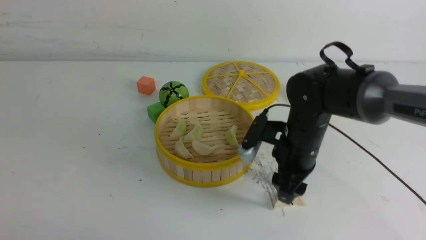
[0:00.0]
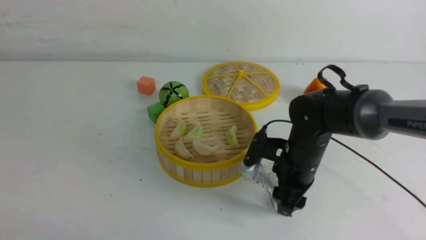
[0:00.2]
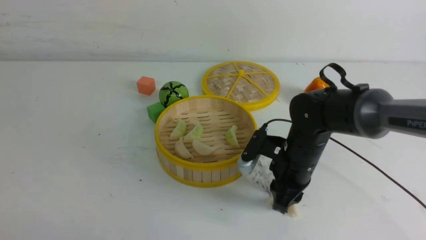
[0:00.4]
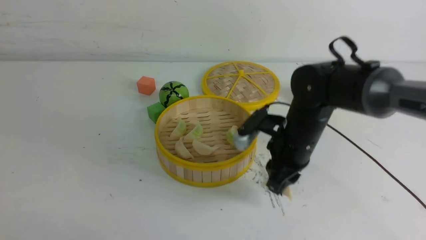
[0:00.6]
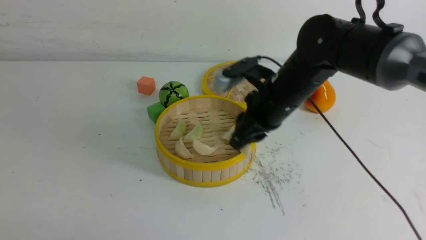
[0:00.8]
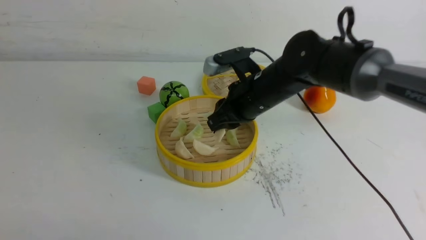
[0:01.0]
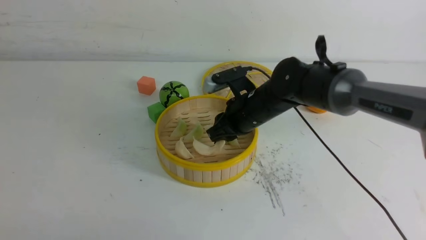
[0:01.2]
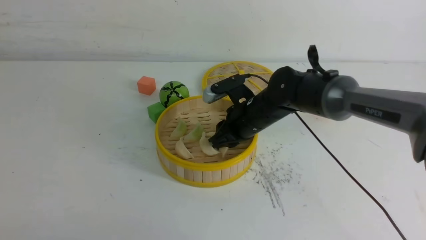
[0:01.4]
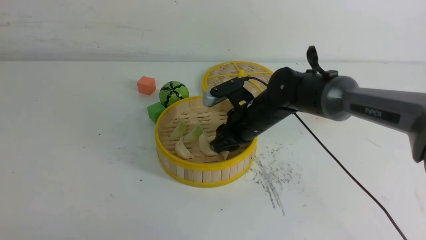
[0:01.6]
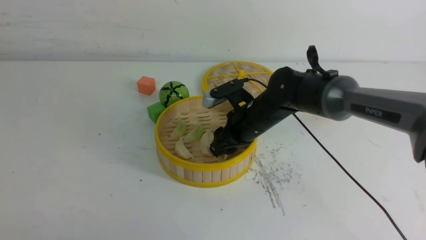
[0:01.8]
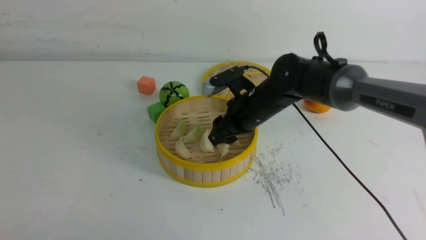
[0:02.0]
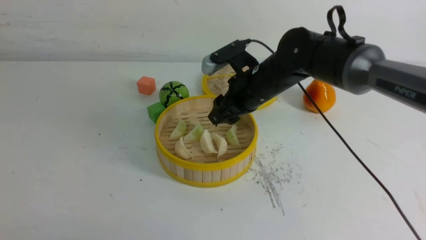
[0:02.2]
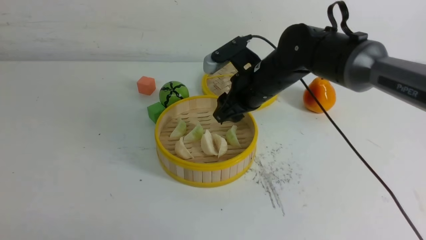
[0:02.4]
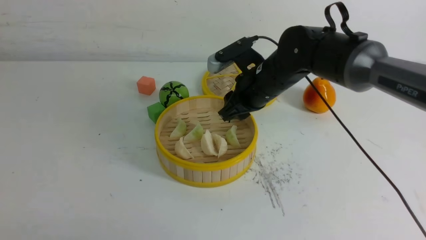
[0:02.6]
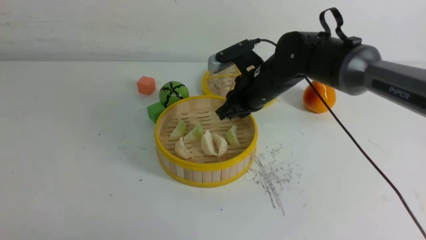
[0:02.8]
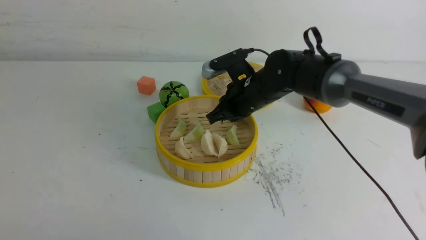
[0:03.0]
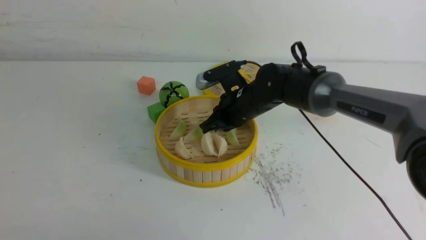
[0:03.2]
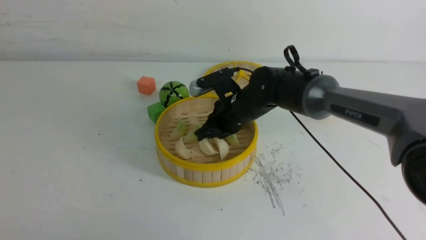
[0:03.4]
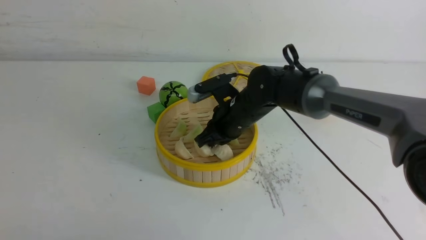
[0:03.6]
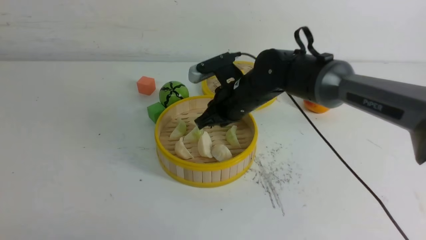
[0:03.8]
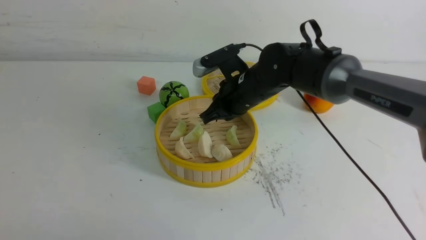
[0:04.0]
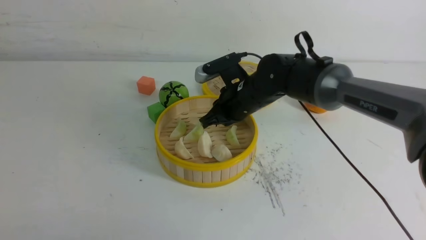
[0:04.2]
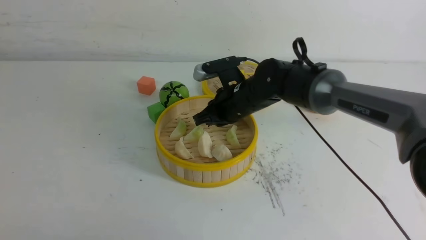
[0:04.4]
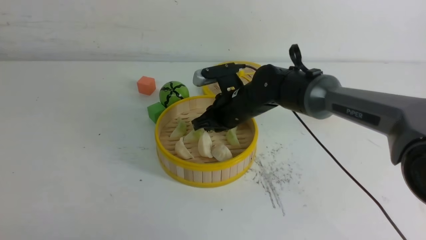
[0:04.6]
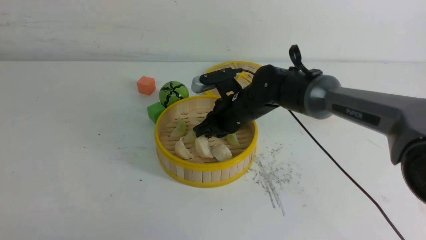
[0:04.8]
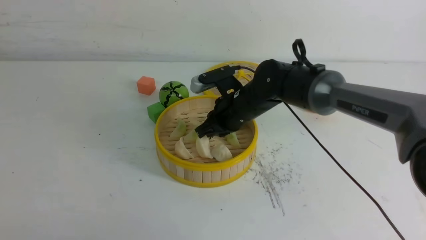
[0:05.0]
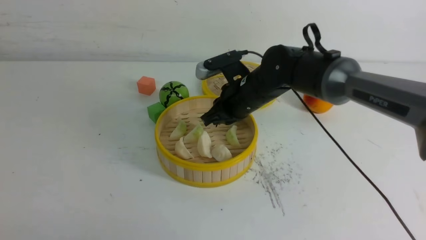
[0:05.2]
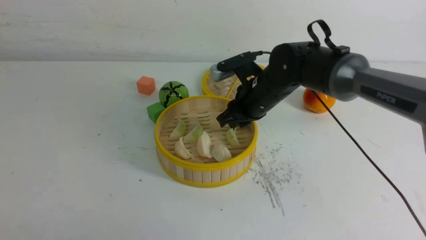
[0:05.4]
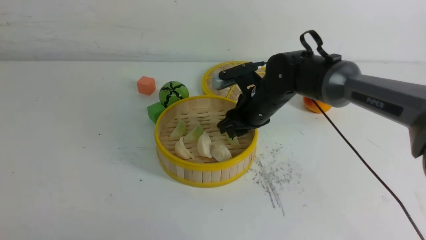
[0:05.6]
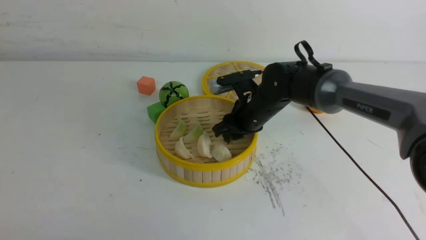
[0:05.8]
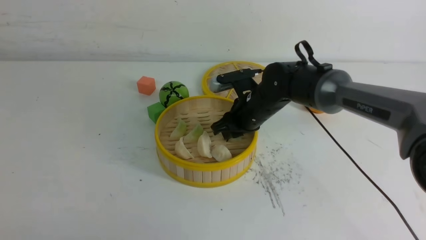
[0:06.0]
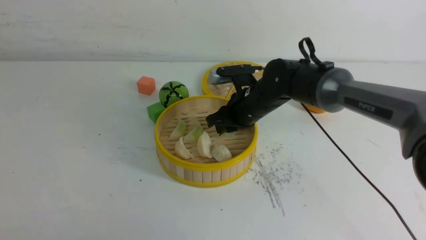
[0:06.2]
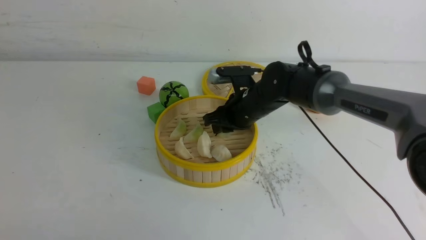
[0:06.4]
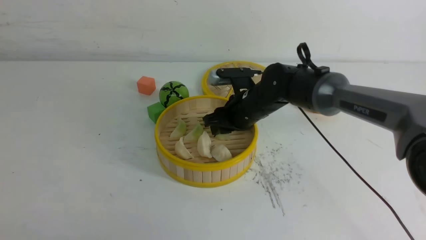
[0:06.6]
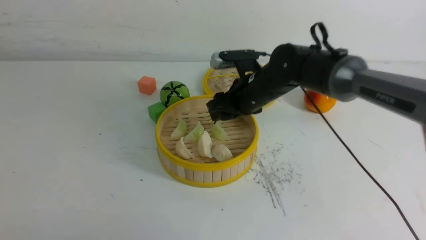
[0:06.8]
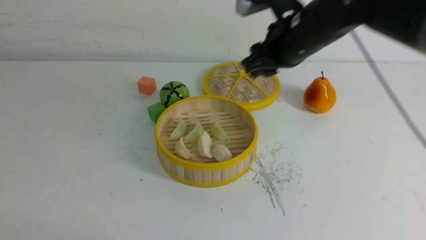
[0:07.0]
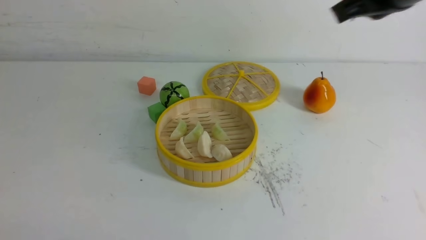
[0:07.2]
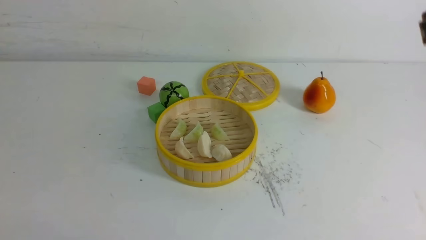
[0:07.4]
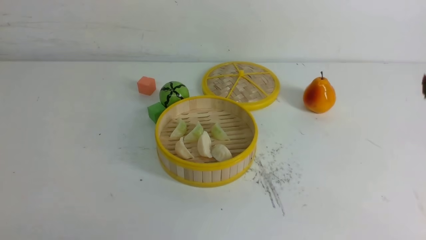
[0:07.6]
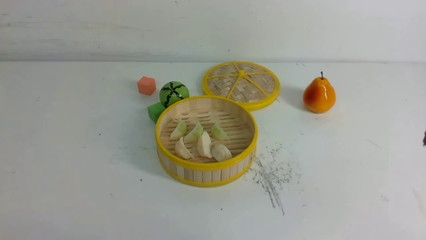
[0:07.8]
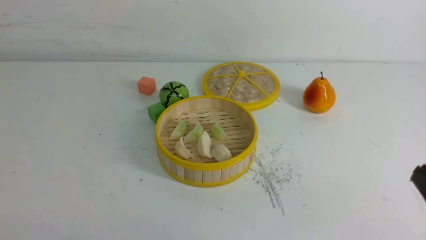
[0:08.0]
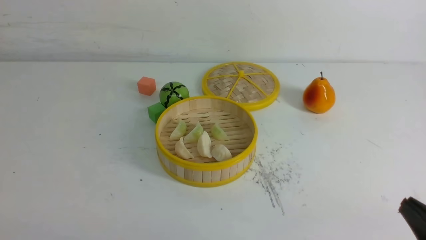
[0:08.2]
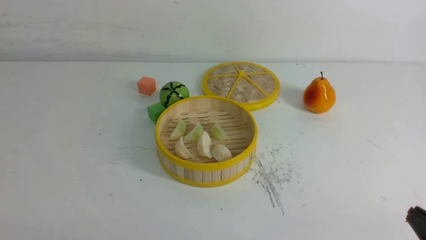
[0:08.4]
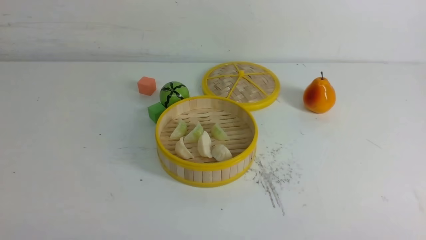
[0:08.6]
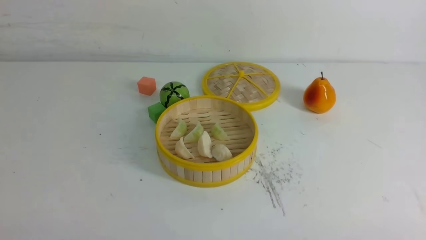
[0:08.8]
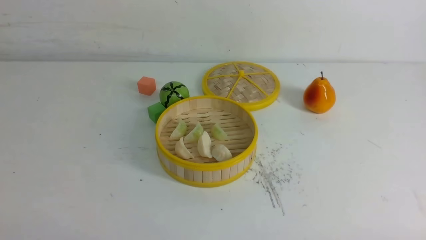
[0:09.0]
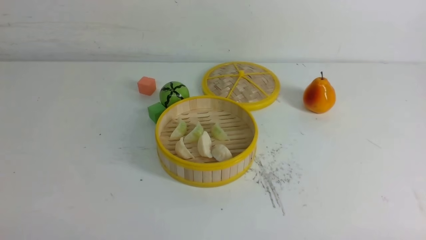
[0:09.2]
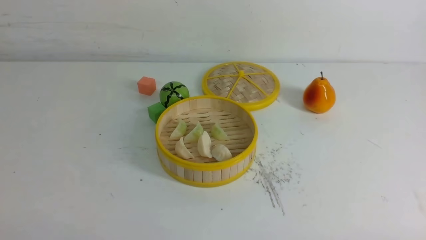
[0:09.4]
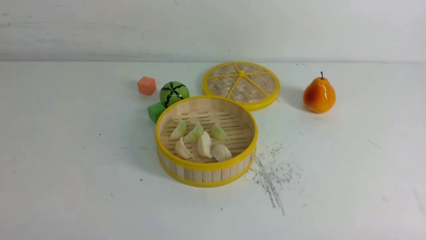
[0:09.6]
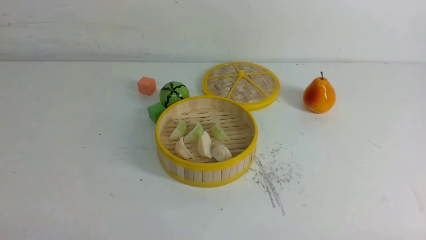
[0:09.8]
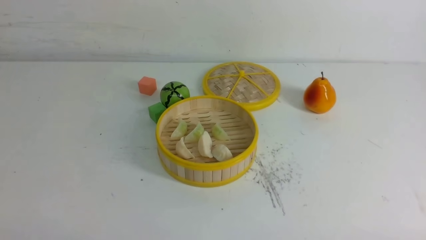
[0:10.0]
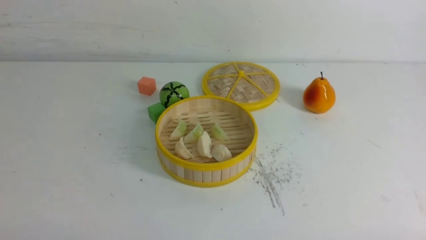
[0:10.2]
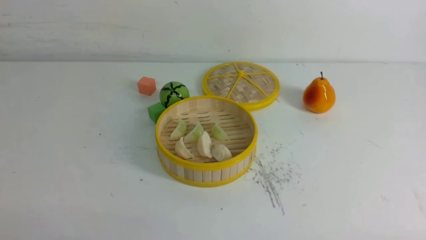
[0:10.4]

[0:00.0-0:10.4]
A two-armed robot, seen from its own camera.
Task of the whole recording: put the dumplings into the steamer on the white table.
Step, 0:00.8 to 0:01.8: use the right arm to put the dumpling into the steamer.
0:00.0 to 0:01.4: The right gripper heads forward and to the left, covering approximately 10 cm, moves approximately 5 cm upward and comes back, and closes its fingers.
0:01.4 to 0:03.0: The right gripper closes its fingers.
0:03.0 to 0:04.4: The grippers make only small movements.
0:04.4 to 0:06.0: The right gripper opens its fingers.
0:06.0 to 0:07.4: The right gripper moves upward, backward and to the right, roughly 35 cm, and closes up.

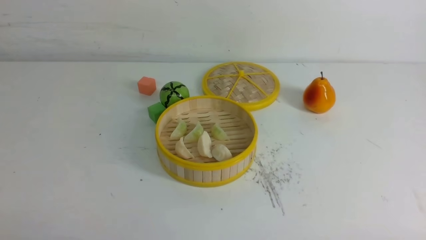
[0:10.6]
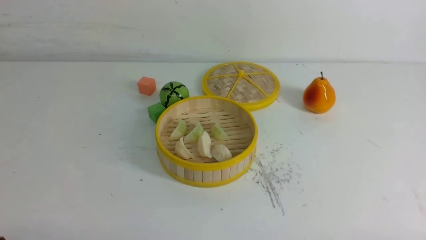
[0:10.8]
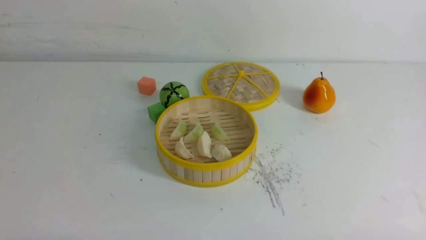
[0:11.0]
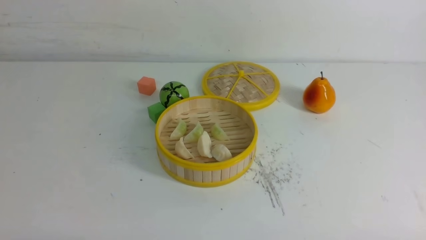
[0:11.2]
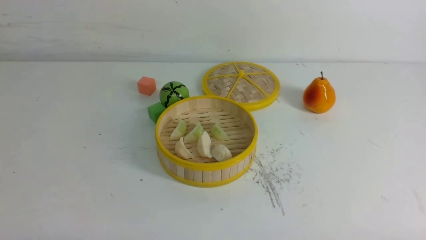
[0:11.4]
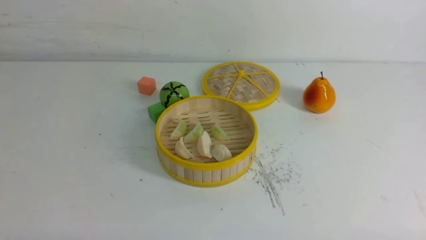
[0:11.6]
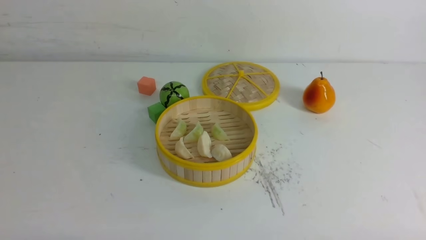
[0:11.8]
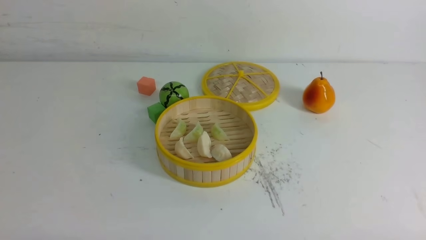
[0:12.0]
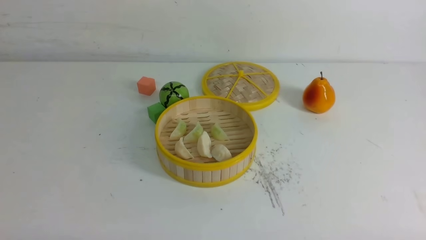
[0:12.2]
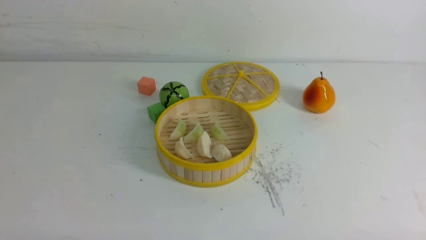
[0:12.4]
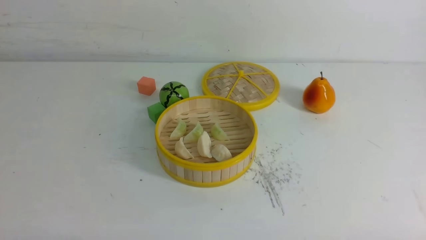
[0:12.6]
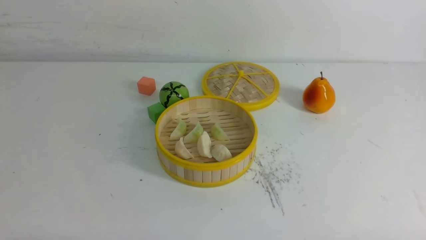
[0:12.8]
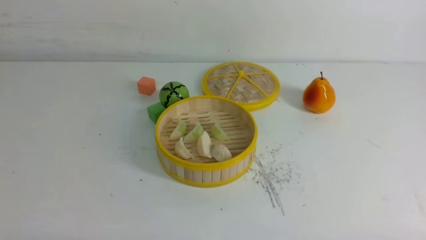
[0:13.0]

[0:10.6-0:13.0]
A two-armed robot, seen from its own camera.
Task of the whole recording: put the dumplings into the steamer on the white table.
0:11.8 to 0:13.0: Both grippers stay about where they are.
